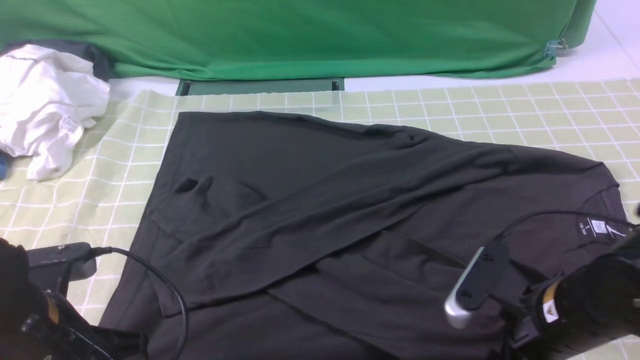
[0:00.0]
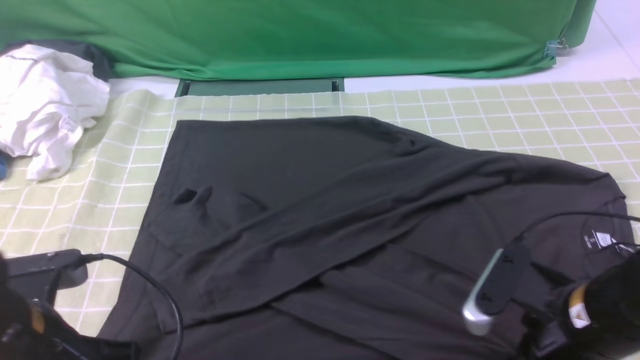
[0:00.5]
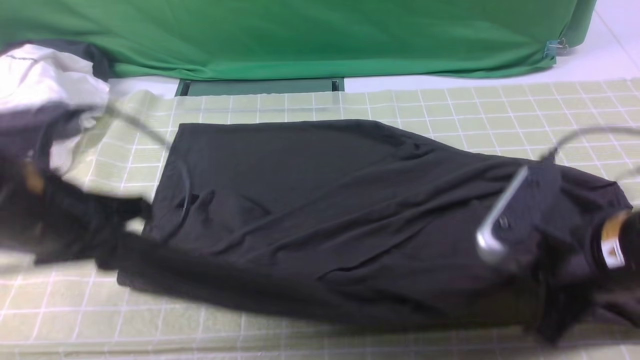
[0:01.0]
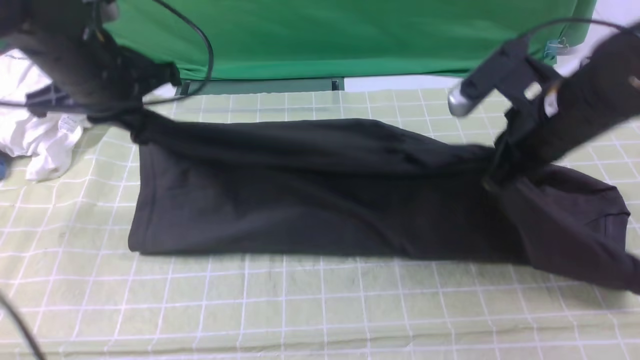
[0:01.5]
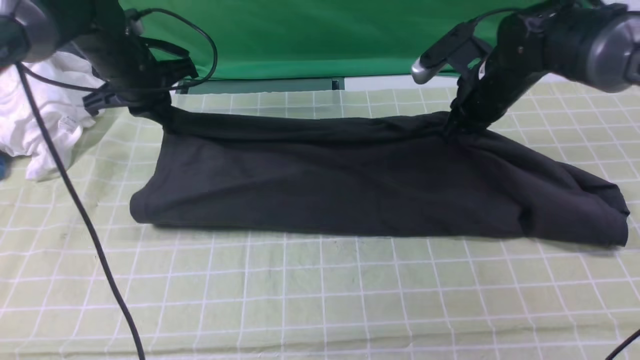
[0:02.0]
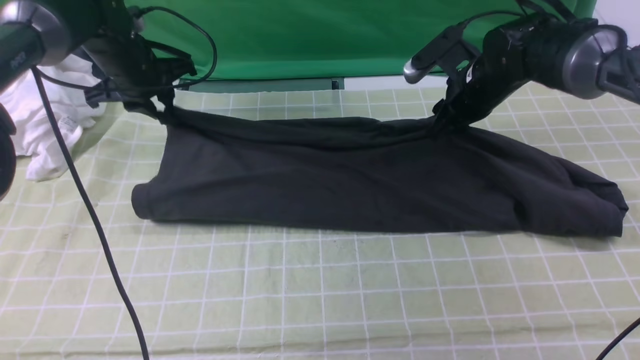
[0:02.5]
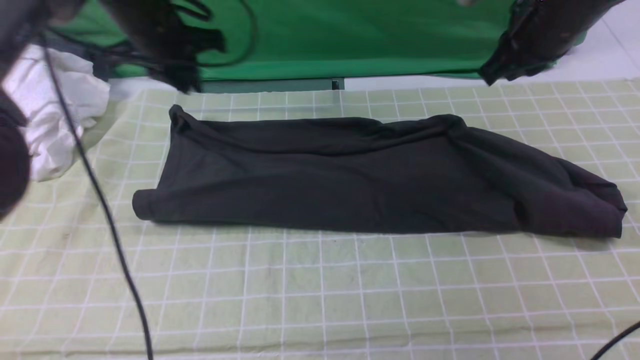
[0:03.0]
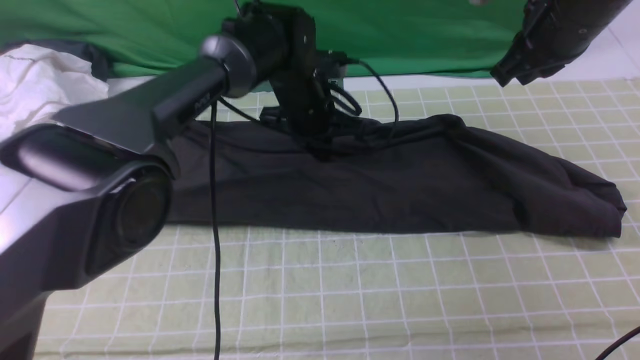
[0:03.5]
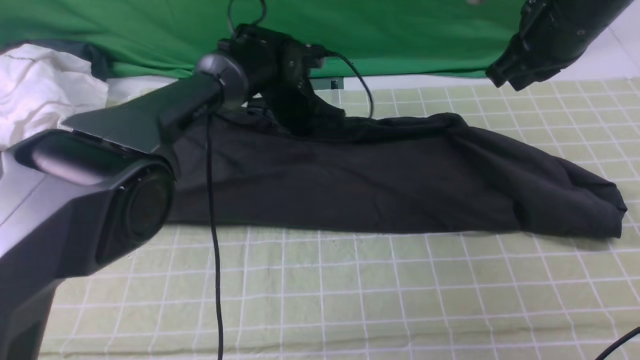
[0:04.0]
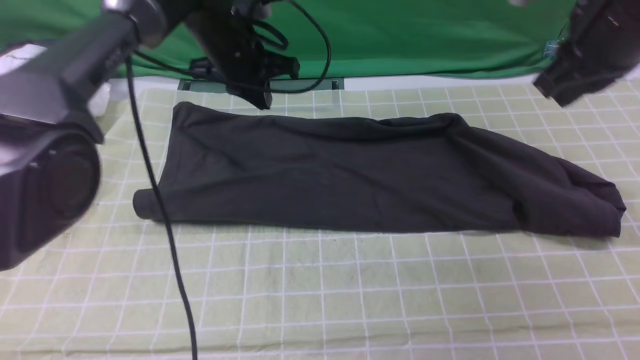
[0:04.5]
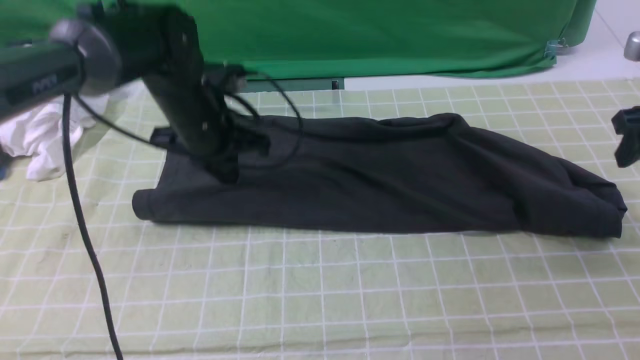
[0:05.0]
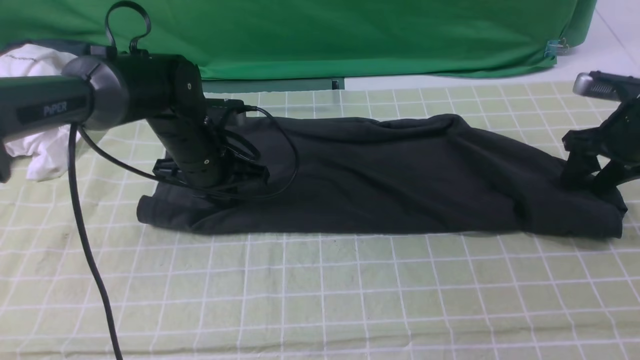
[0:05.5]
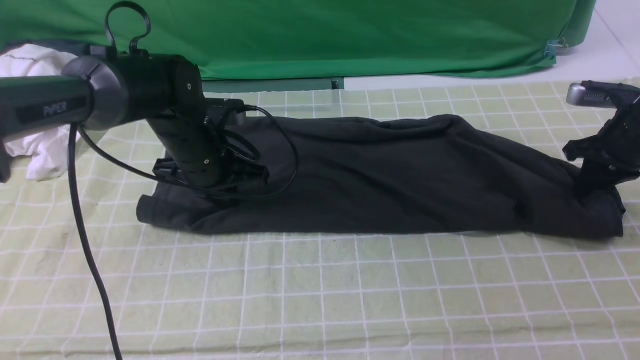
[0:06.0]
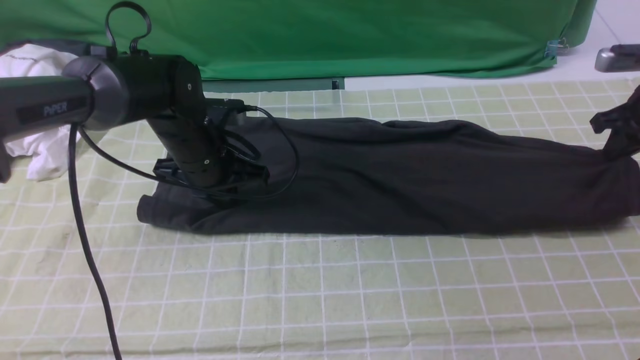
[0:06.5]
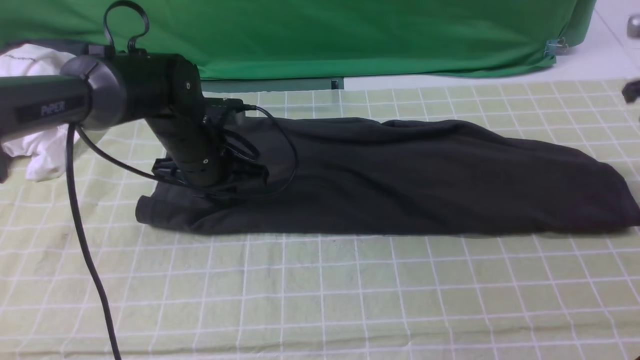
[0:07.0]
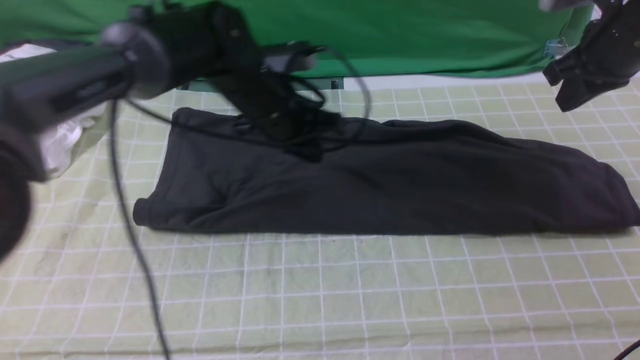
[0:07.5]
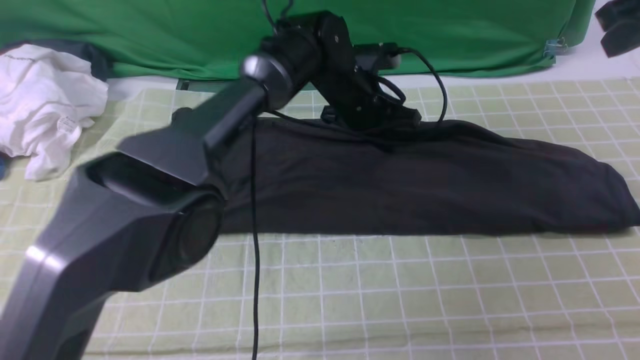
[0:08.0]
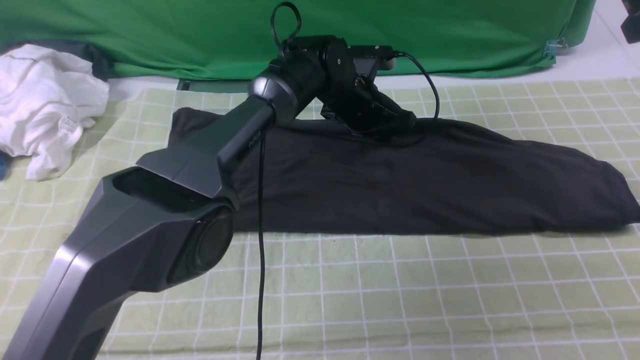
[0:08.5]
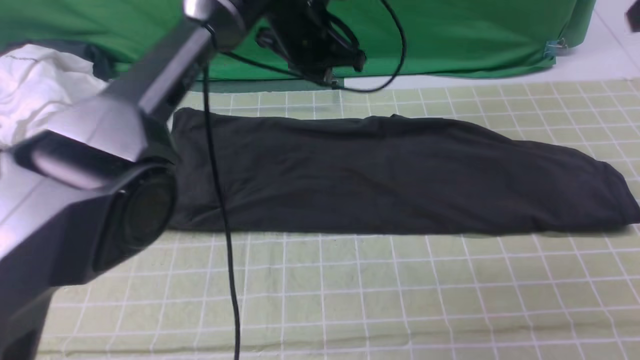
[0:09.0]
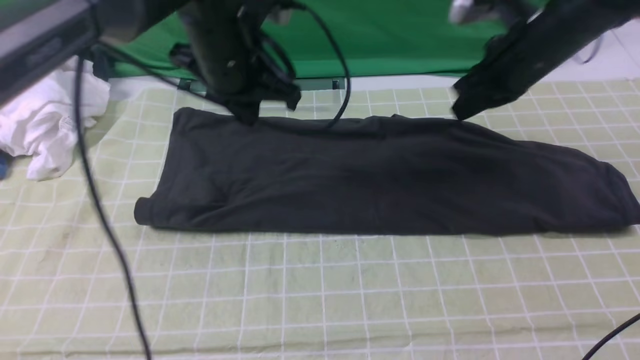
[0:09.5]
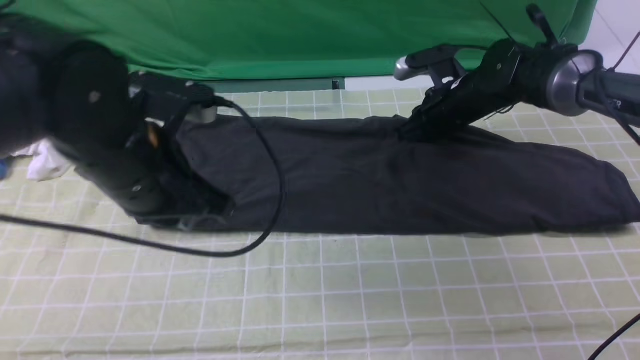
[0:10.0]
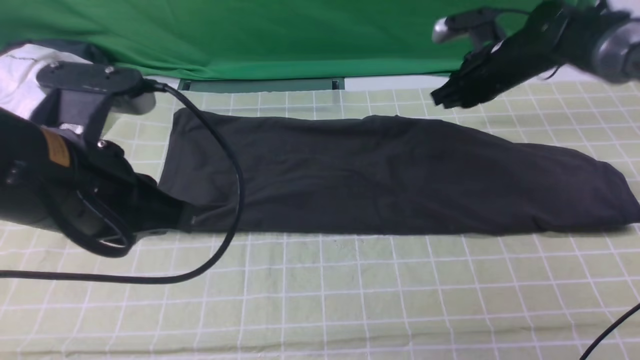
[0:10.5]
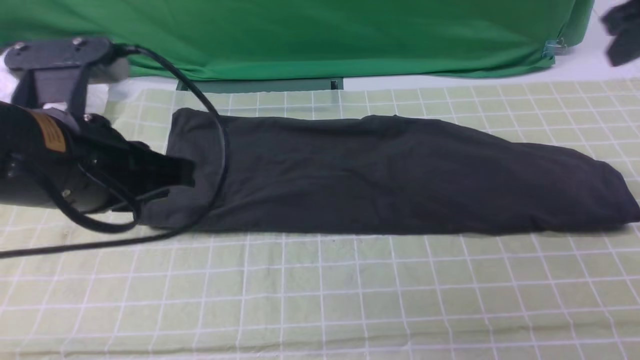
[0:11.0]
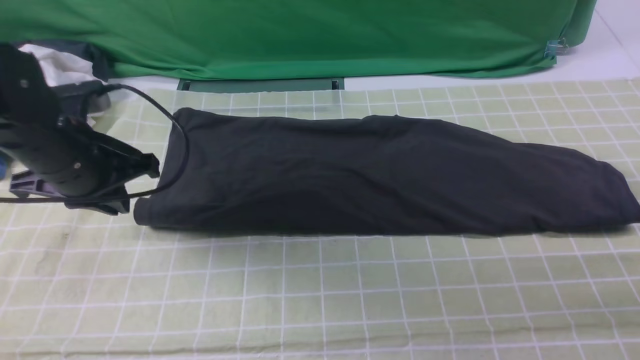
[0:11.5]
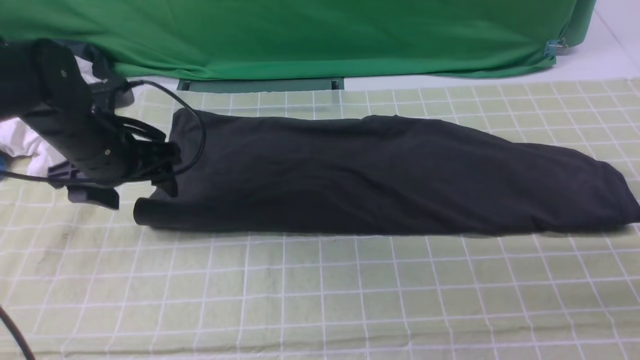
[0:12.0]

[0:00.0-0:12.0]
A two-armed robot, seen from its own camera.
Step, 0:00.5 to 0:04.0: use both arms to drag the lower edge of the fabric forward and fold it over the upper edge.
0:00.0 to 0:02.0: The two grippers go approximately 30 cm forward. The right gripper closes.
0:02.0 to 0:04.0: The right gripper travels upward and backward by some 15 cm, and opens, then closes again; the left gripper shifts approximately 15 cm to the right, and opens, then closes once more.
0:04.0 to 0:06.0: The right gripper moves downward and to the right, roughly 25 cm, and opens and closes again. The left gripper travels backward and to the left by roughly 15 cm.
0:06.0 to 0:08.0: The right gripper heads upward, covering approximately 20 cm, while the left gripper moves to the right and forward, some 20 cm.
0:08.0 to 0:10.0: The right gripper is displaced downward, to the left and forward by some 30 cm; the left gripper moves backward, to the left and upward, about 30 cm.
0:10.0 to 0:12.0: The left gripper travels forward, to the left and downward by approximately 15 cm, and opens up. The right gripper goes about 30 cm to the right, backward and upward, and opens its fingers.

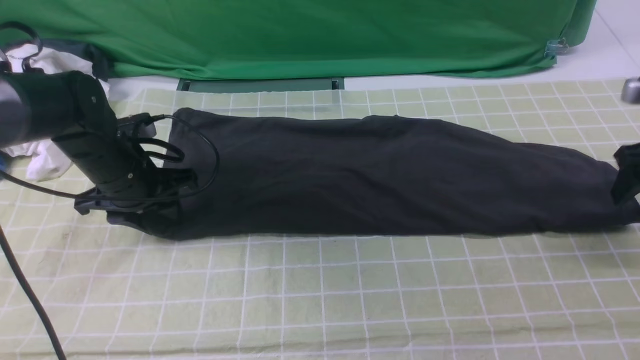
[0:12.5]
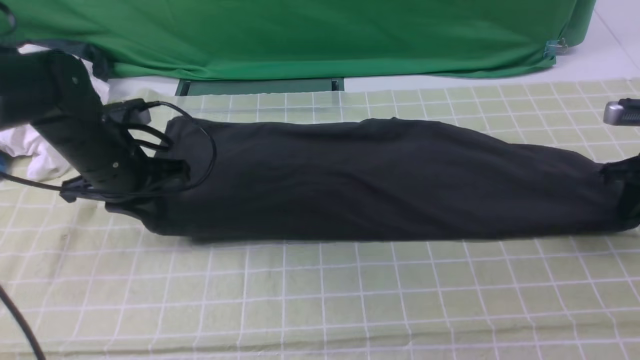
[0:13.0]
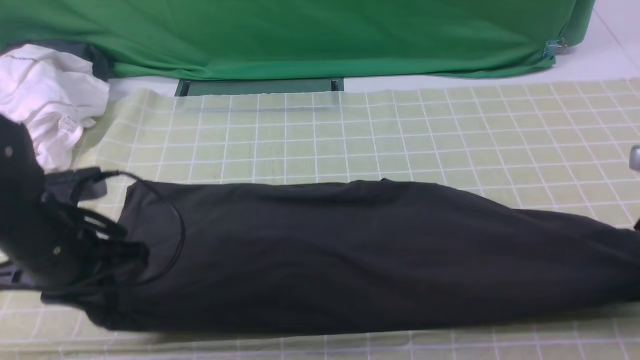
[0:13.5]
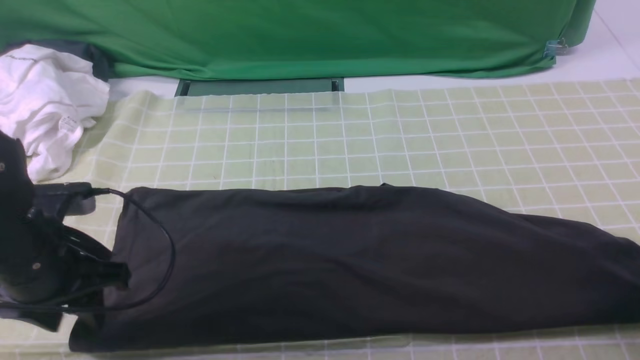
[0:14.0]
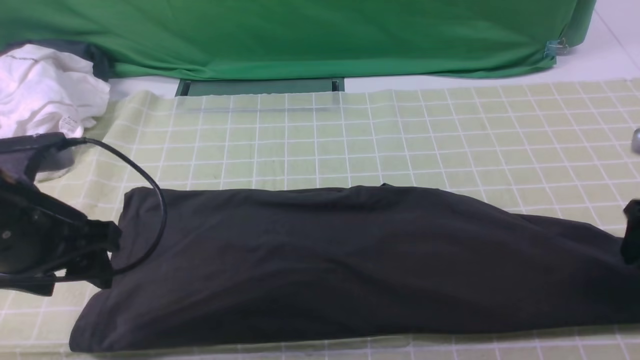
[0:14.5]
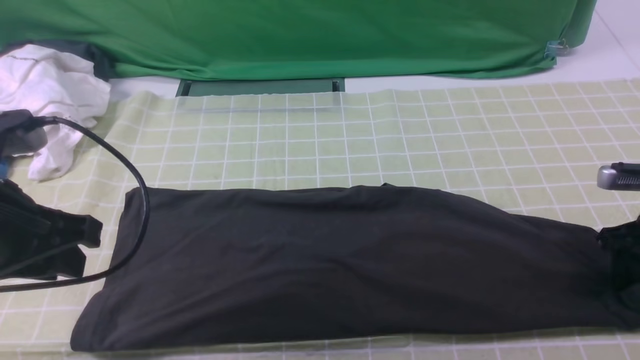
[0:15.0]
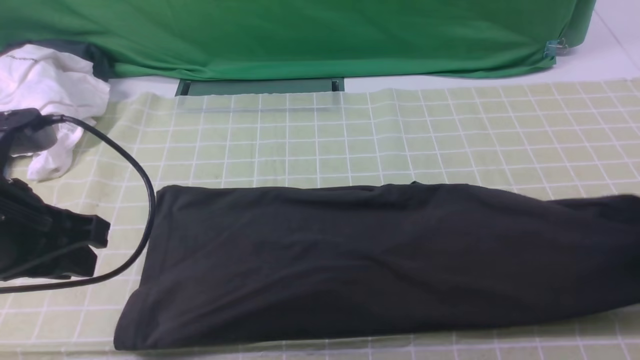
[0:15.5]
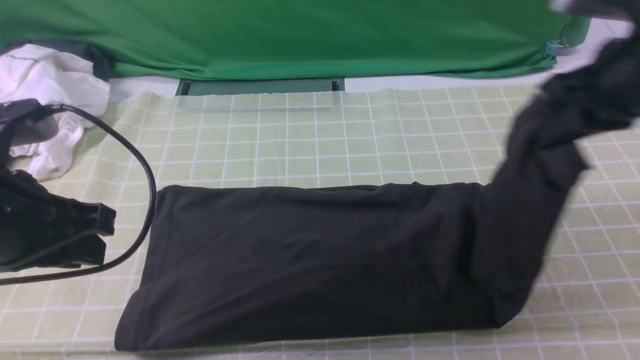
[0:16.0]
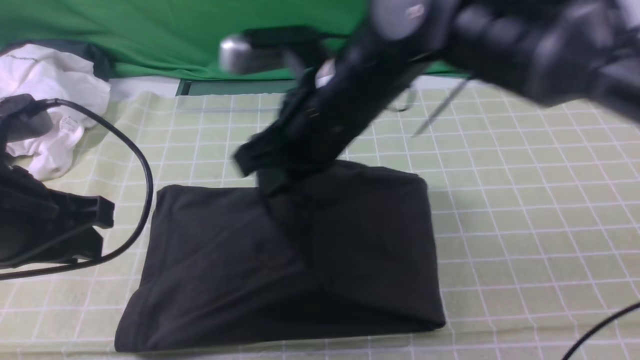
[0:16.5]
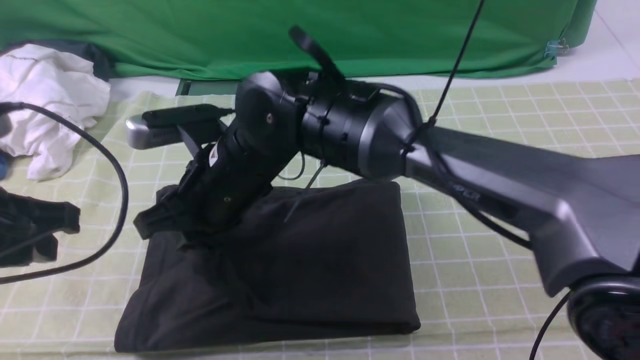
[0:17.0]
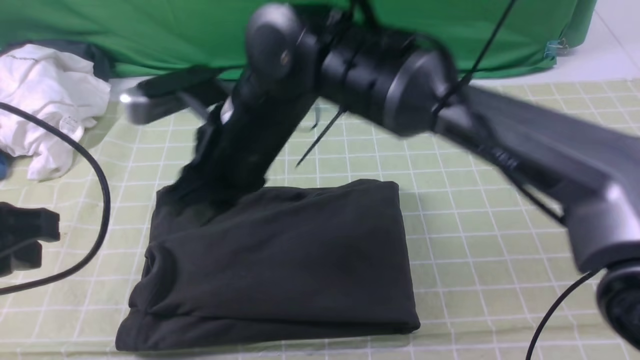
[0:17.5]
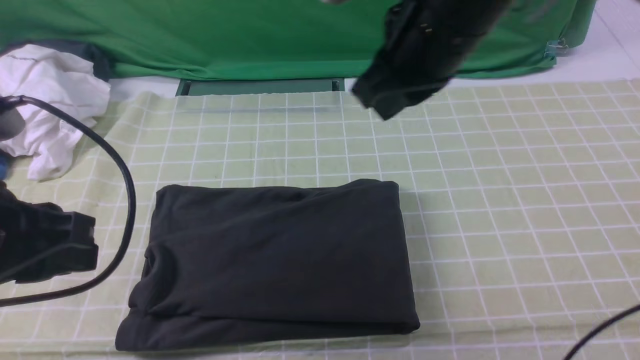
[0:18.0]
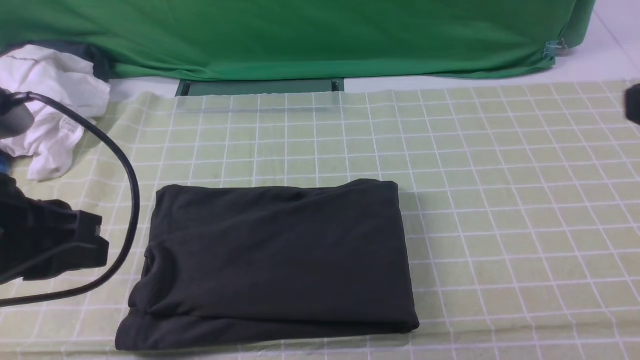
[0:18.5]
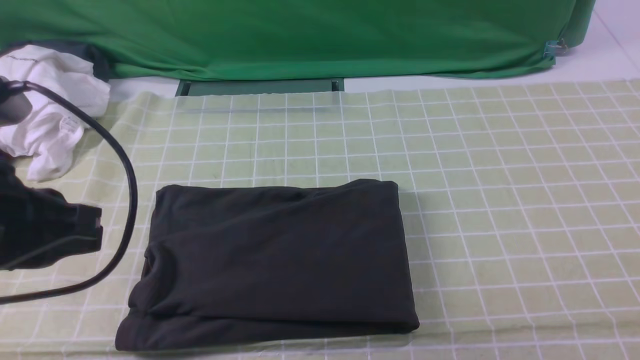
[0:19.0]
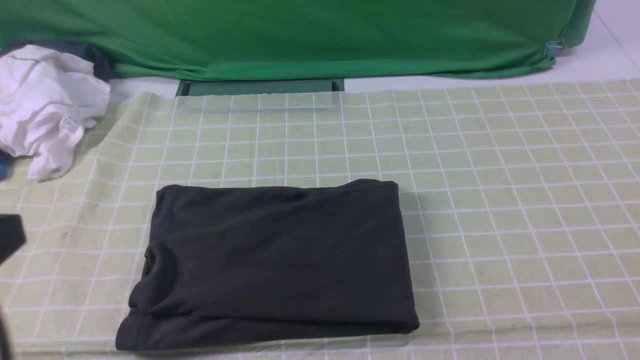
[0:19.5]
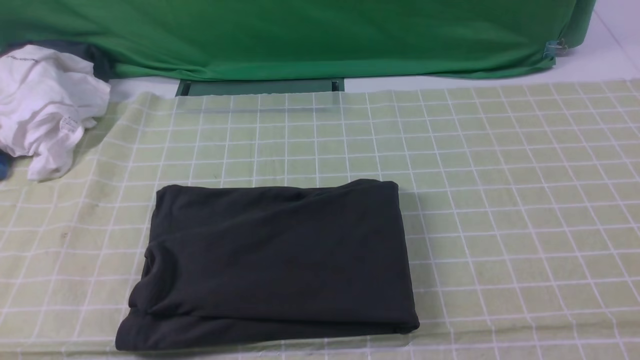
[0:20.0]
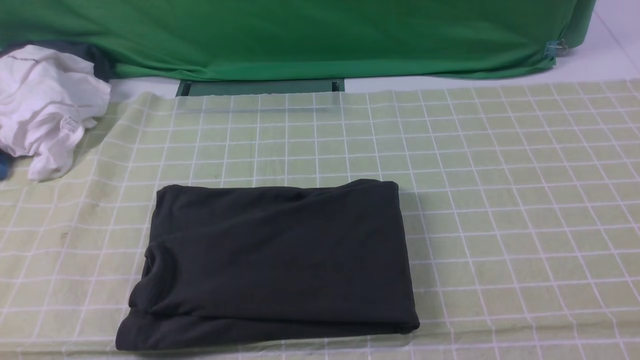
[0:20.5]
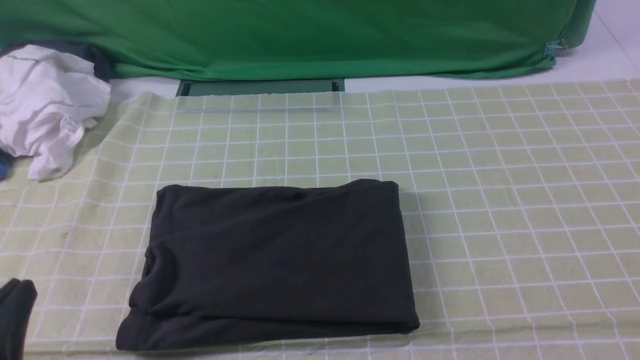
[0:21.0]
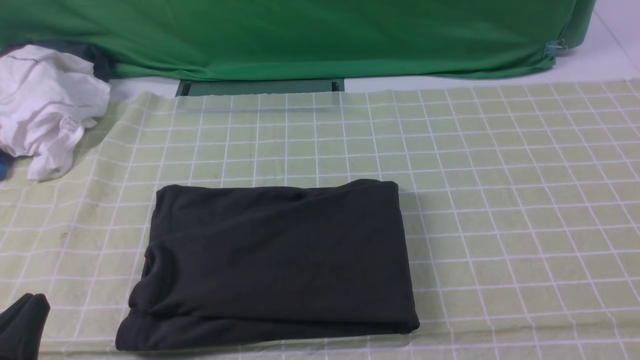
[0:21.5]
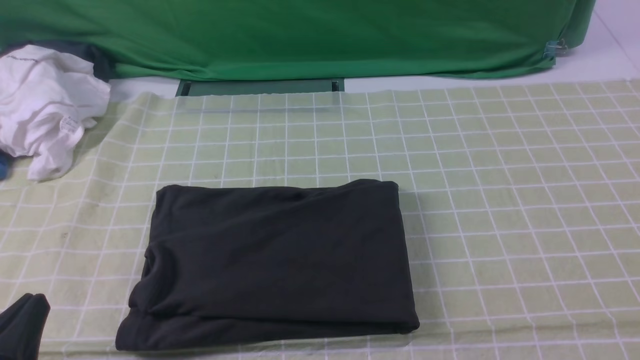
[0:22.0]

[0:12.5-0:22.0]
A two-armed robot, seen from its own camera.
Step, 0:12.5 to 0:15.0: use the right arm to clamp the right edge of the fabric.
Step, 0:15.5 to 0:17.0: use the right arm to drag the right edge of the fabric to the left and folds it over the left edge.
0:12.5 to 0:14.5: The right gripper shifts about 5 cm backward, and closes, then opens again. Meanwhile the left gripper is displaced backward and upward by some 20 cm, and closes, then reopens.
0:14.5 to 0:16.5: The right gripper goes approximately 35 cm to the left, and closes; the left gripper closes up.
0:16.5 to 0:18.0: The right gripper is displaced to the right and upward by approximately 15 cm.
0:18.0 to 0:20.0: The right gripper travels backward and to the right by roughly 35 cm, while the left gripper travels backward by some 15 cm.
0:20.0 to 0:22.0: The left gripper is displaced downward by about 20 cm.
